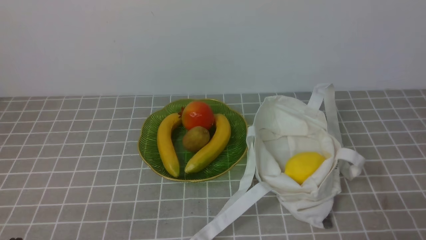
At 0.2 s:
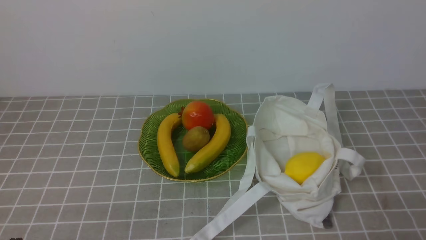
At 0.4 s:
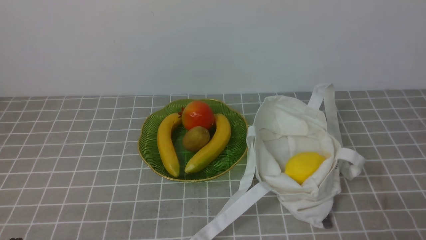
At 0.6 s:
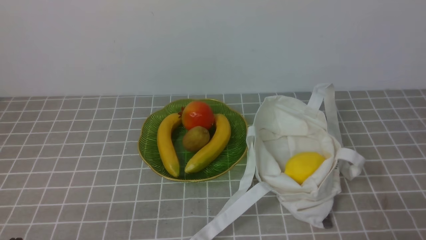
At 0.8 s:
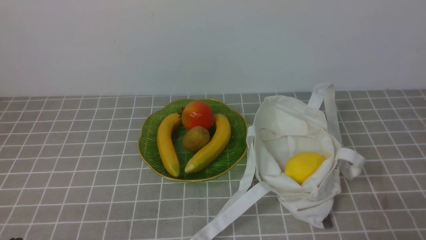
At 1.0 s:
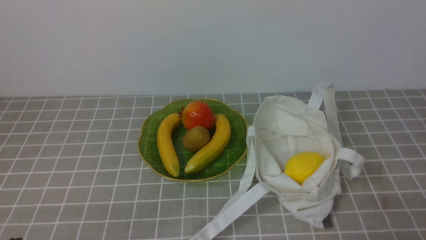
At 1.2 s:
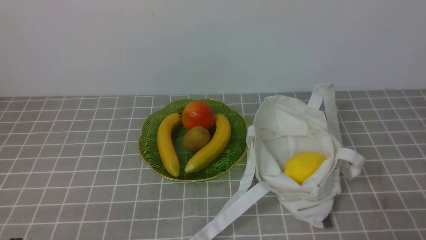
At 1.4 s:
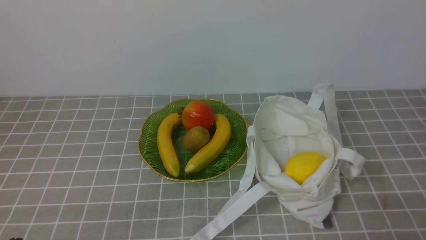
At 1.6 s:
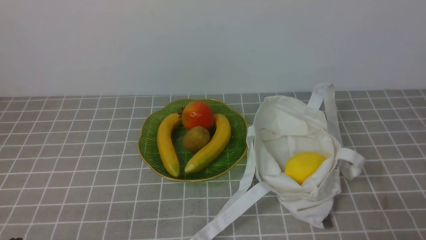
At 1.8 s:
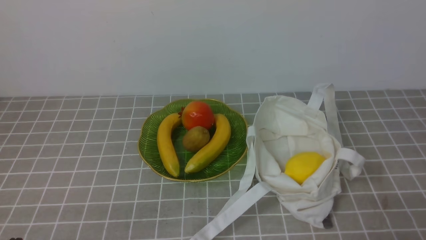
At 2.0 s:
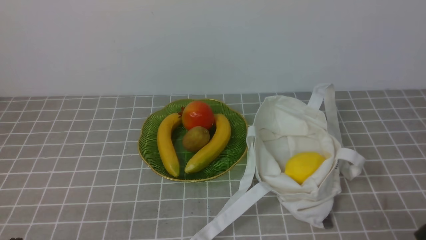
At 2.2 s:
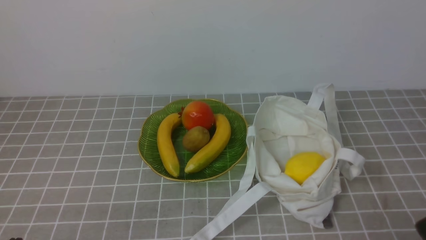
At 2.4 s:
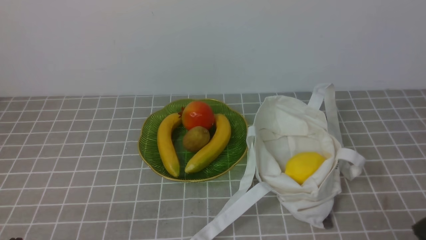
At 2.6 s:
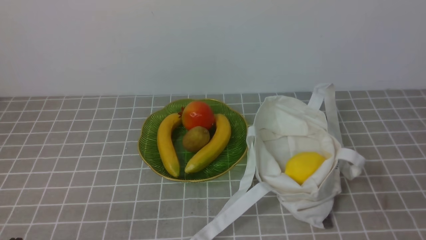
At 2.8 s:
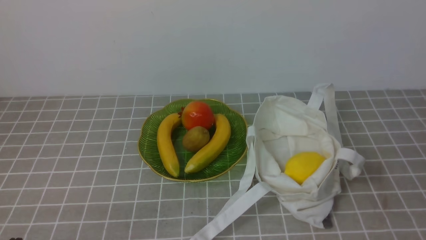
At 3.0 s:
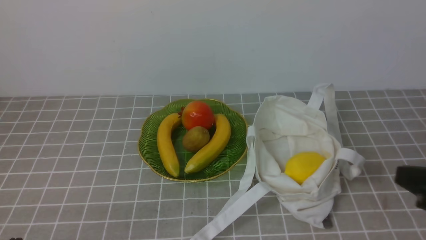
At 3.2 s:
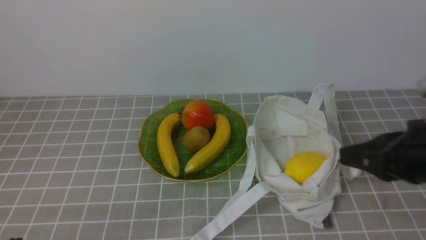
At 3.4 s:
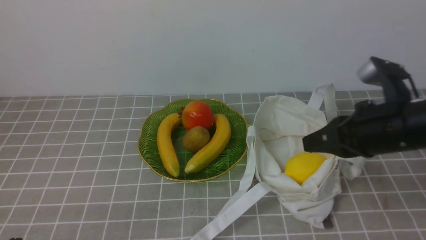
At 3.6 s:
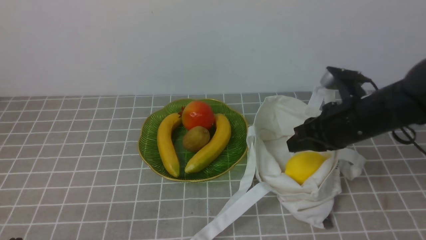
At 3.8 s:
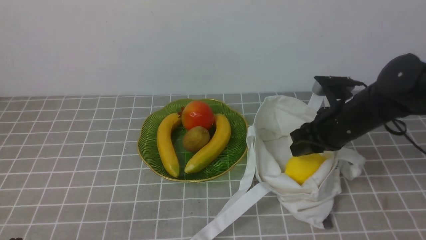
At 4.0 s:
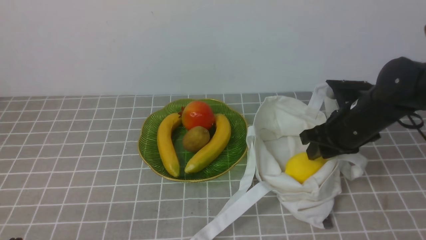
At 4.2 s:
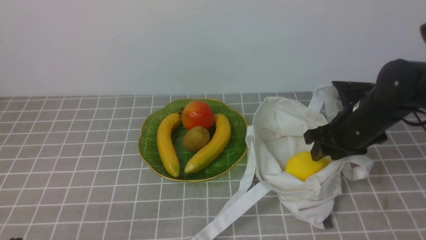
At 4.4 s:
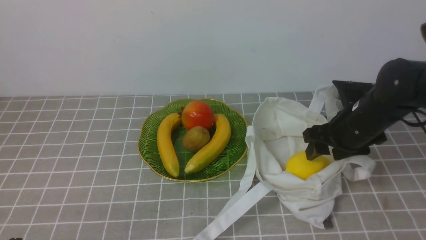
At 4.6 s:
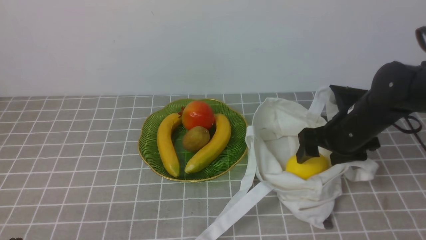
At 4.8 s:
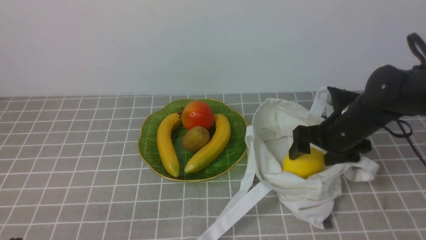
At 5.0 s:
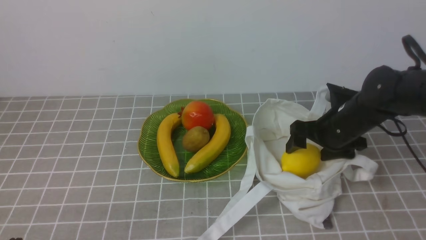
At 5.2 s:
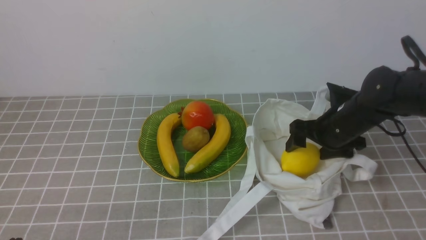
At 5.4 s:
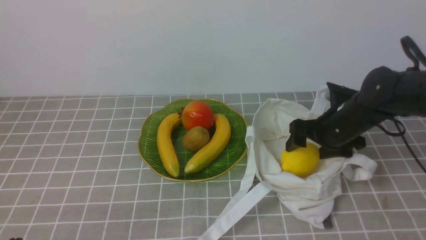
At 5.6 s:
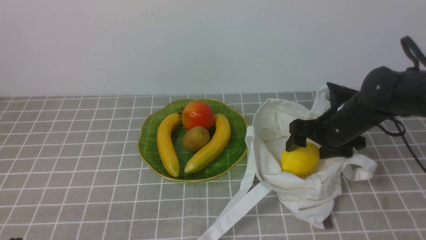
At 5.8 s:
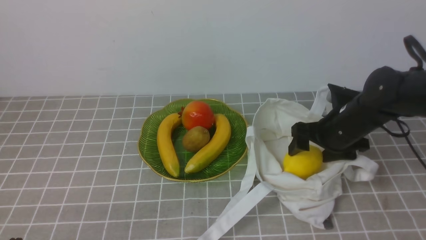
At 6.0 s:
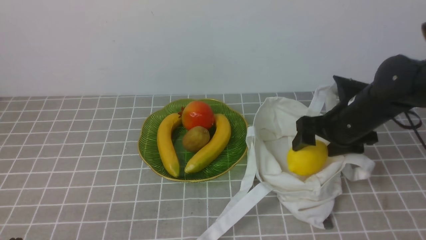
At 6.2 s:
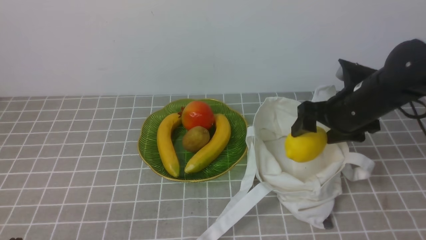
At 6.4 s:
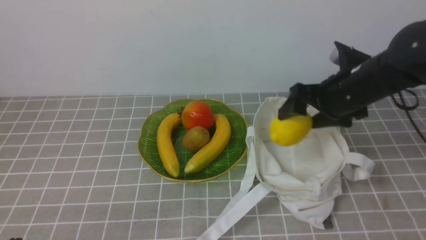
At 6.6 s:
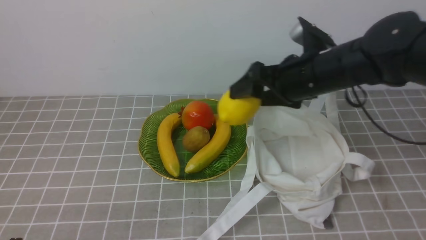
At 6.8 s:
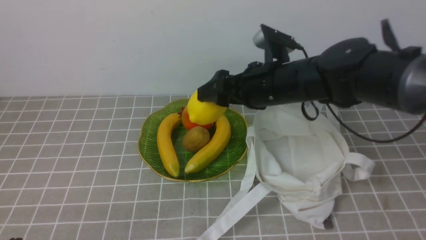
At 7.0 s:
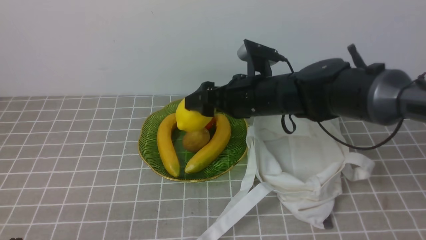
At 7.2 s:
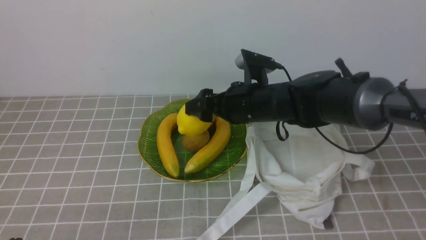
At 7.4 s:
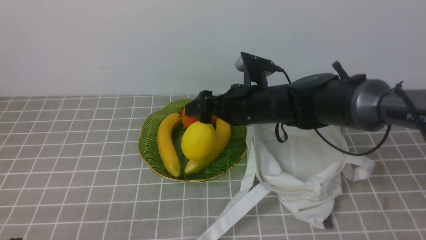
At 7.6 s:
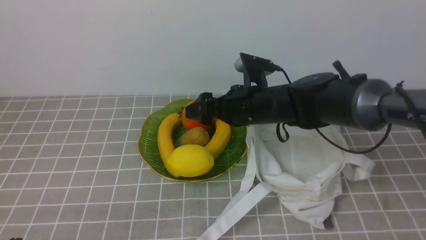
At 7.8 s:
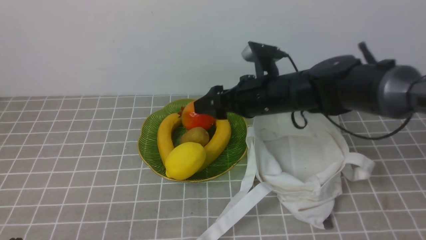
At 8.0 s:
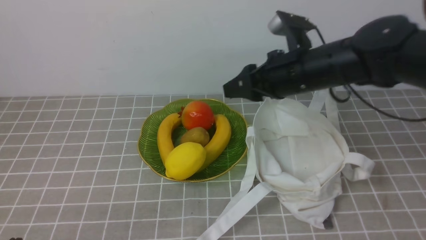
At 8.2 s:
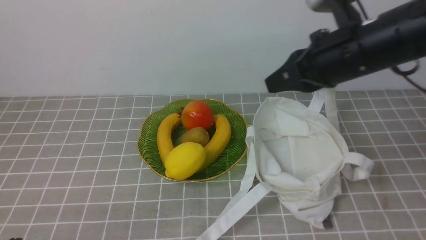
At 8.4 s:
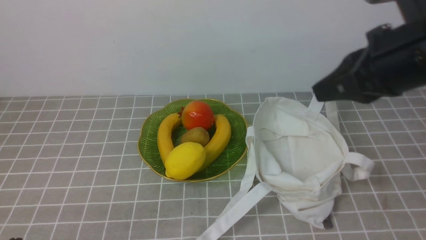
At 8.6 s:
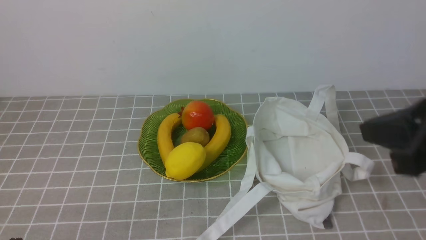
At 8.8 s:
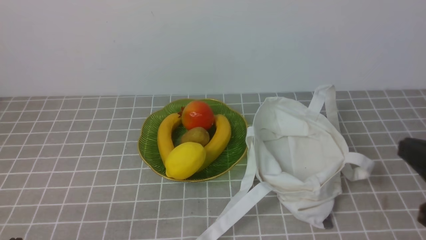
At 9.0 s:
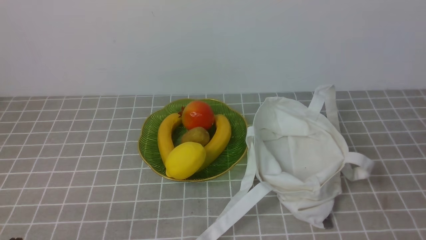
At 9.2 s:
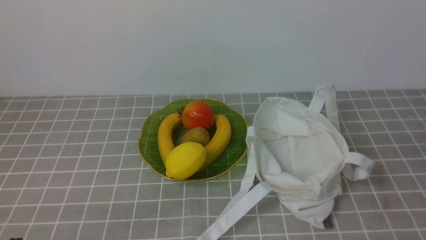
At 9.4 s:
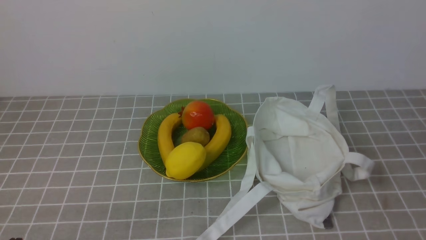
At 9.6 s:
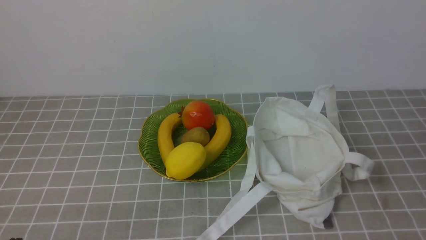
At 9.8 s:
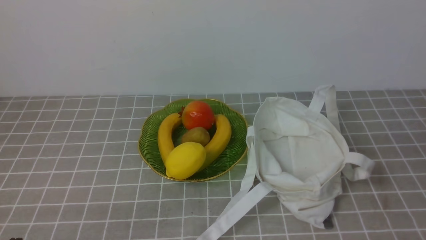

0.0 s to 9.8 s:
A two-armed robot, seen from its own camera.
Step, 0.0 to 5.8 s: use the right arm to grab a lemon from the bag.
Step, 6.0 to 7.6 s: use the right arm to put the lemon into the empty plate on the left.
0.0 to 1.4 s: Both grippers stay put.
2.8 to 4.2 s: The right gripper shifts about 25 cm forward, and opens.
4.2 to 5.6 s: The right gripper opens.
5.6 to 7.0 s: The right gripper moves to the left and upward, some 15 cm.
7.0 to 8.4 s: The right gripper heads to the right, backward and upward, covering some 25 cm, and closes its fingers.
8.4 to 9.8 s: The right gripper heads backward, downward and to the right, covering about 20 cm.

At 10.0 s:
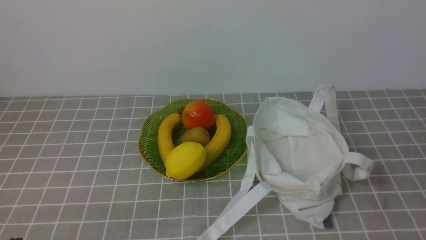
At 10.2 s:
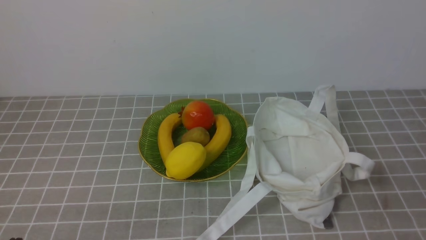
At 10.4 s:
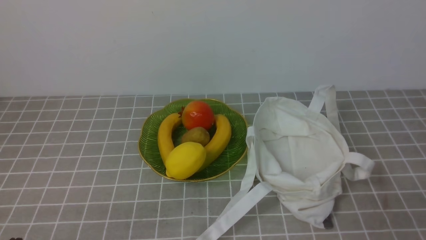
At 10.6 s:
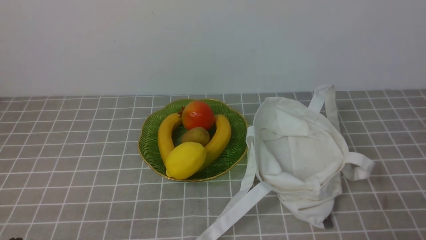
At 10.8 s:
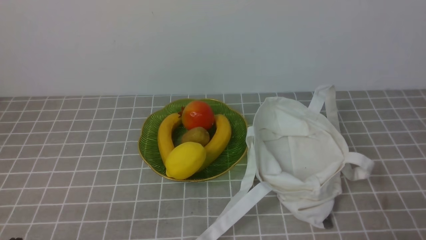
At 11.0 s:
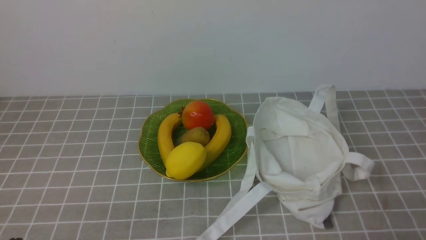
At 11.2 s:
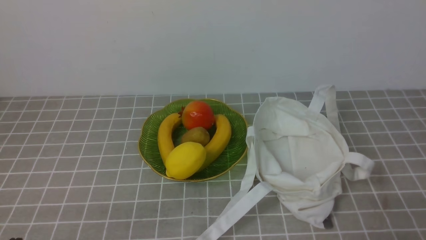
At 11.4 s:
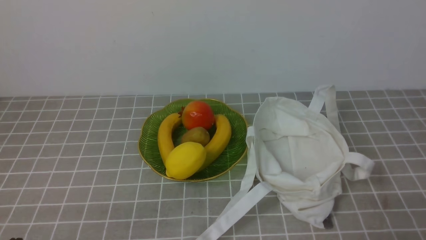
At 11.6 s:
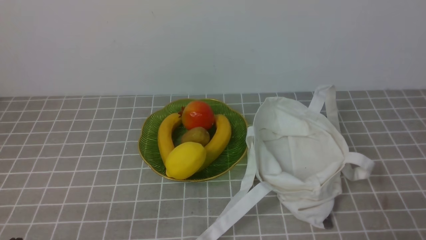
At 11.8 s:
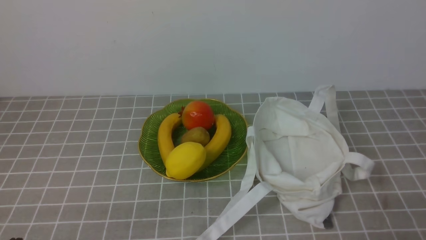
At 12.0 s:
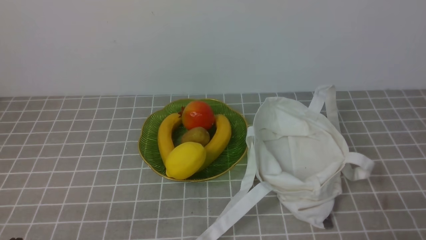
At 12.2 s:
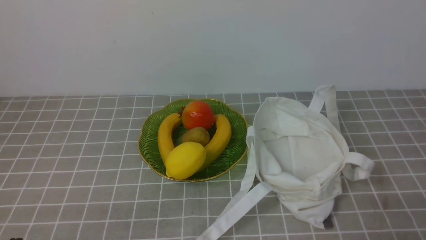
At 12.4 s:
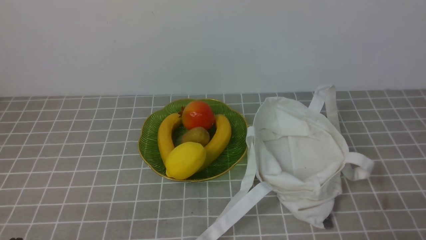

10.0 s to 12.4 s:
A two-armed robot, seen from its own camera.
11.2 to 12.4 s: Both grippers stay about where they are.
